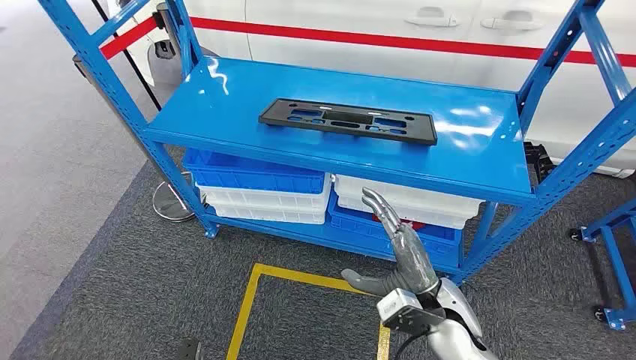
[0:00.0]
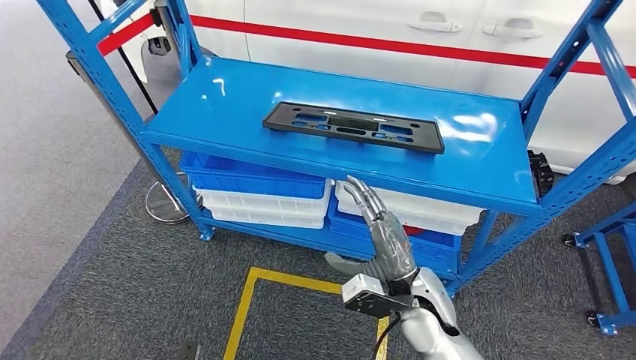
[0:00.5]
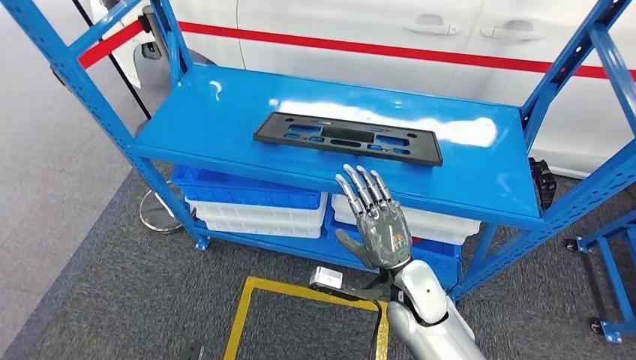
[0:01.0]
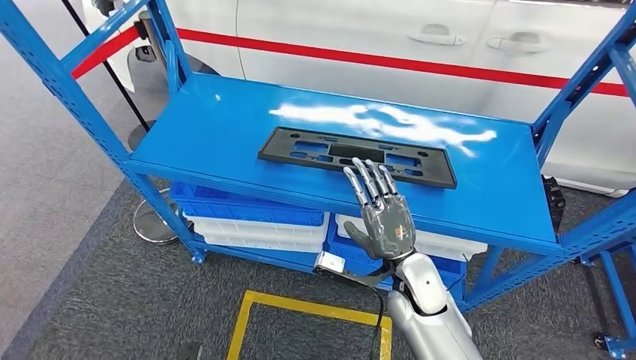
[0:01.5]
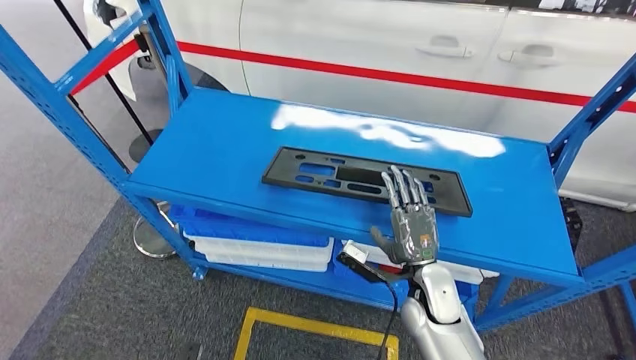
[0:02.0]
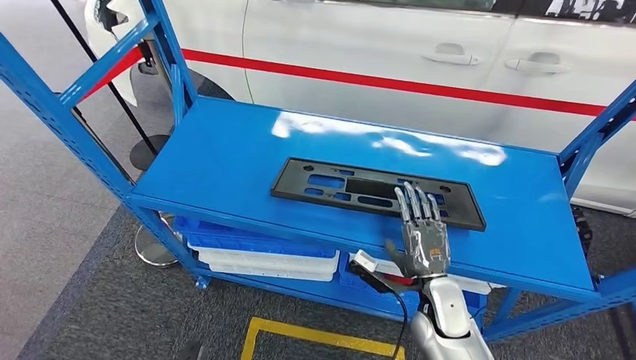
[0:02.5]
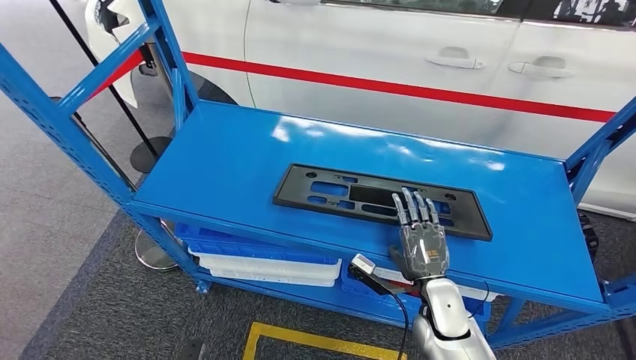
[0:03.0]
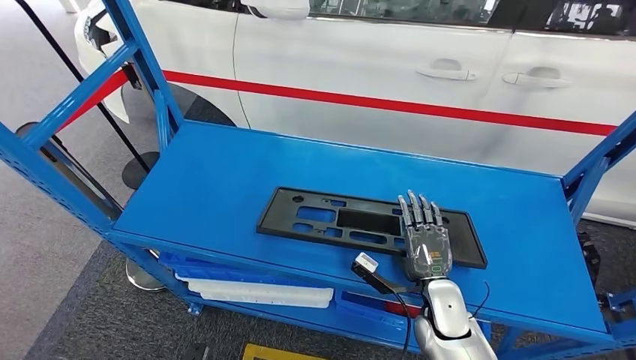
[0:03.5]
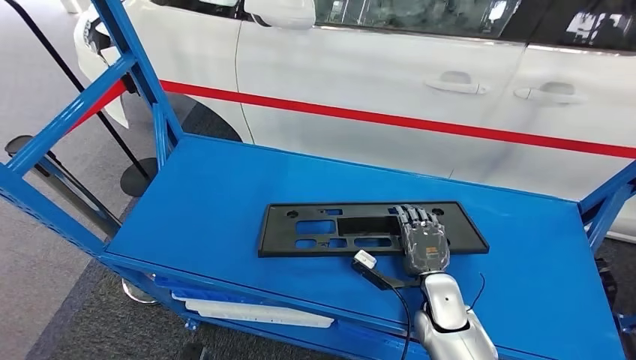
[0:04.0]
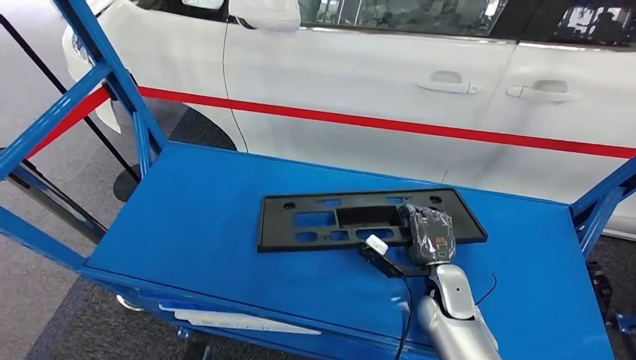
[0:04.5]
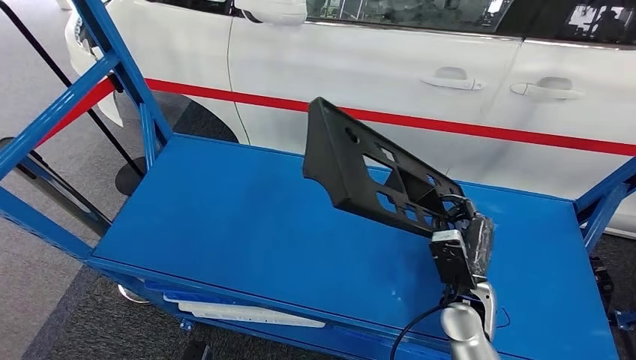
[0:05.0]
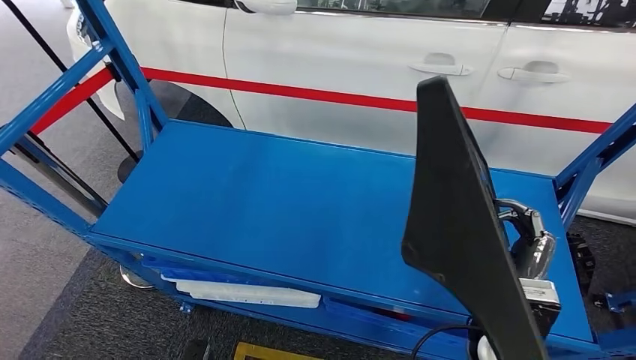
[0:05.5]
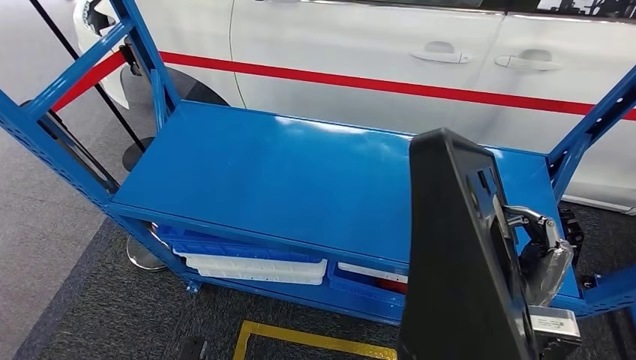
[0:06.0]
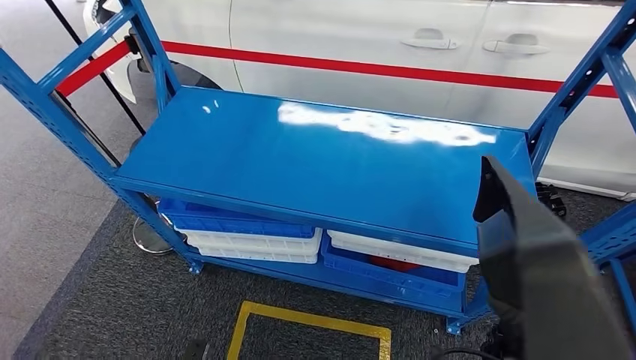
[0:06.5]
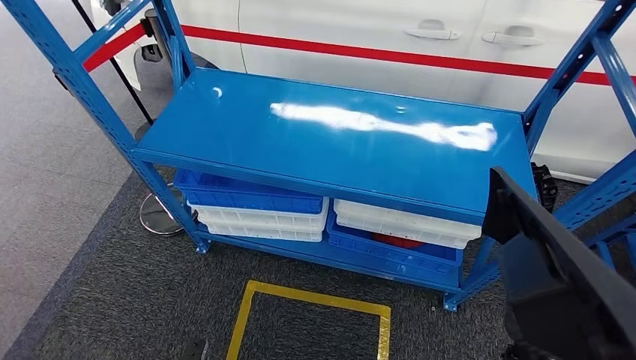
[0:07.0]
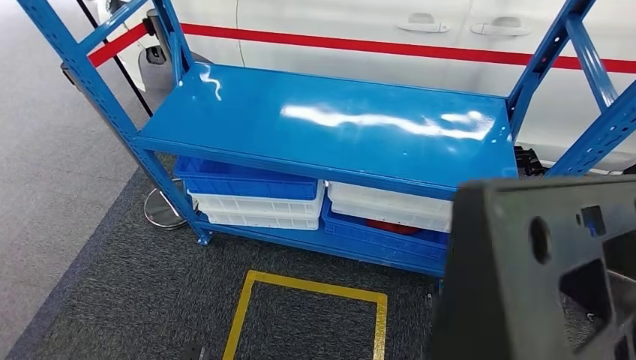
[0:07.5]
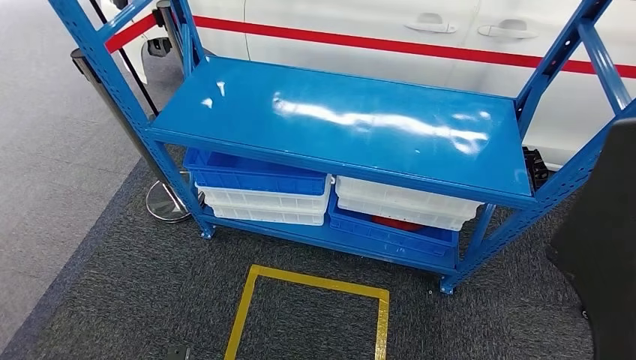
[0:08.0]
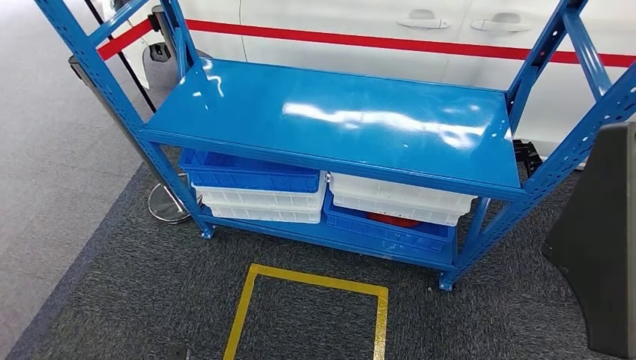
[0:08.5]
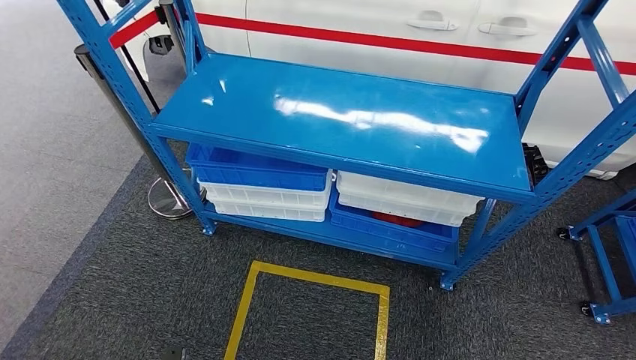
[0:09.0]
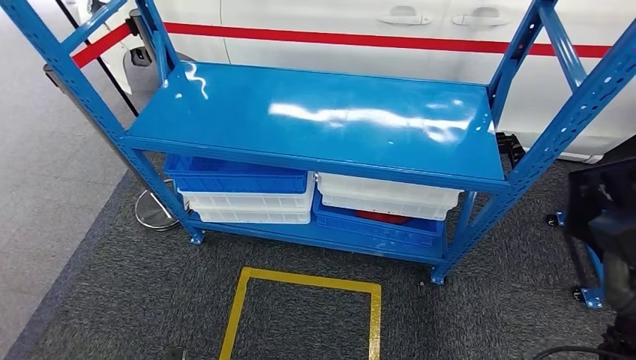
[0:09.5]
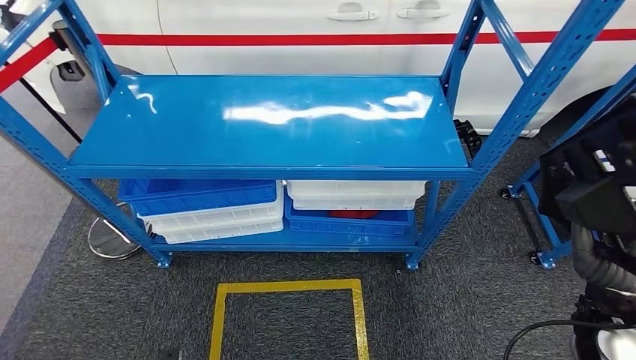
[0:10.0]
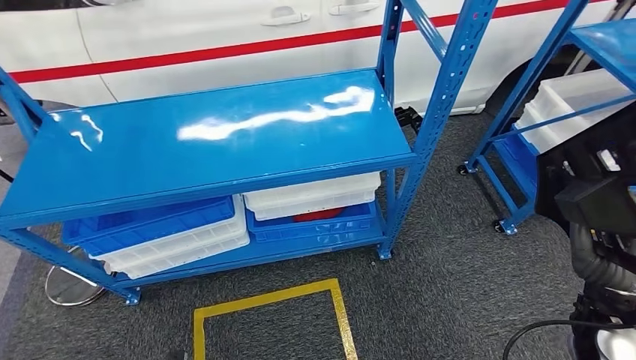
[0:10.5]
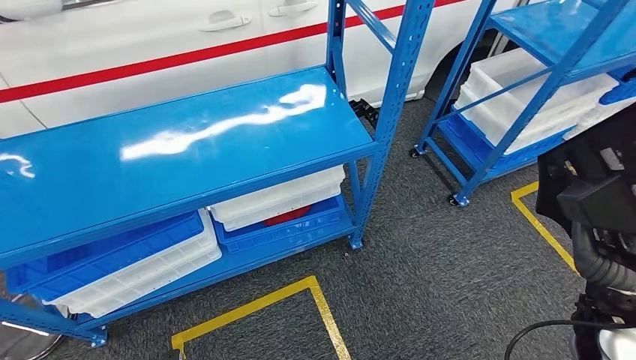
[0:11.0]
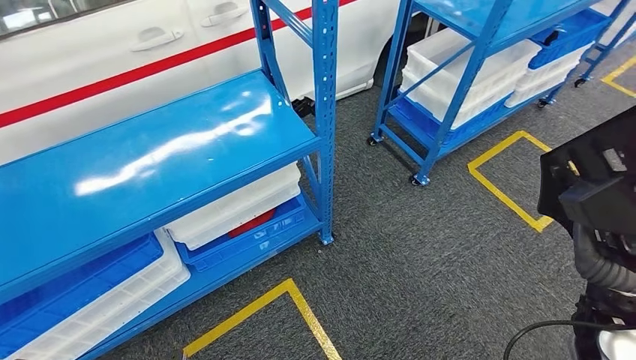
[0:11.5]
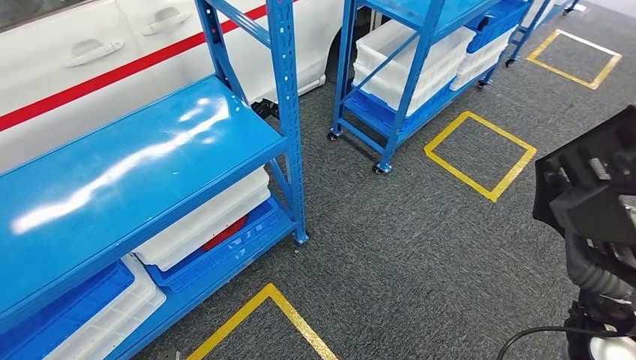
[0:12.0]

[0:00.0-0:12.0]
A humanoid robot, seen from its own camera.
Step, 0:00.0 to 0:05.5: Pick up the large material from the shelf.

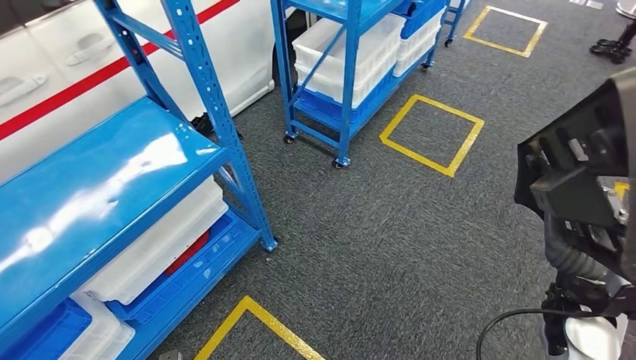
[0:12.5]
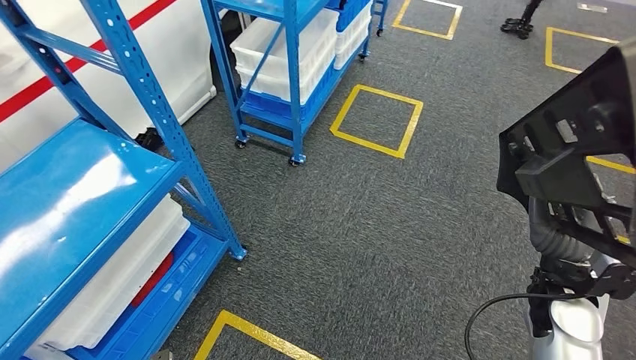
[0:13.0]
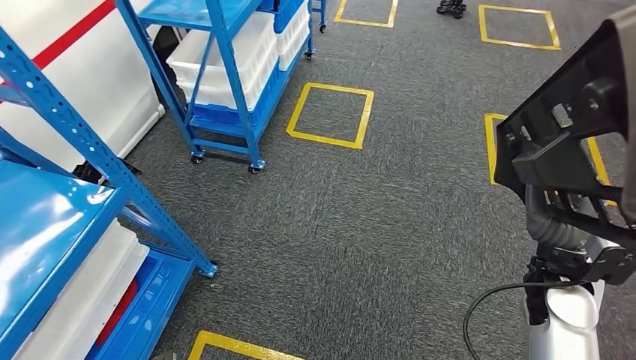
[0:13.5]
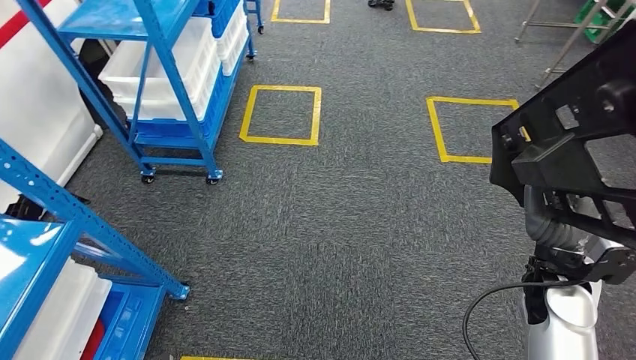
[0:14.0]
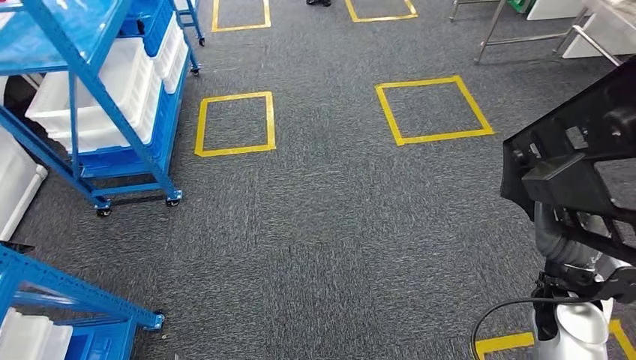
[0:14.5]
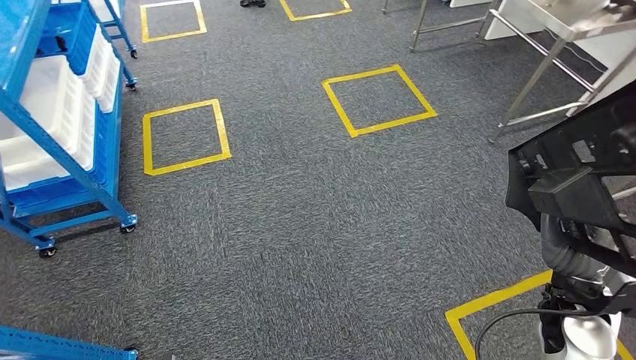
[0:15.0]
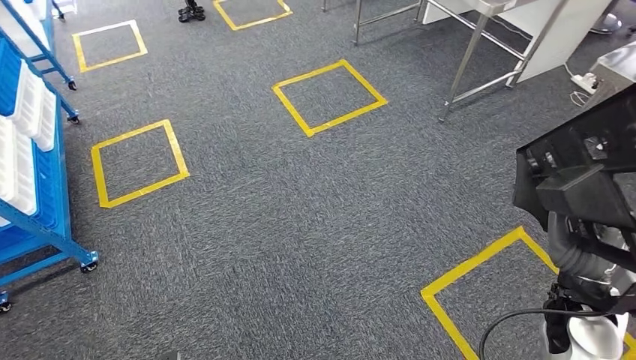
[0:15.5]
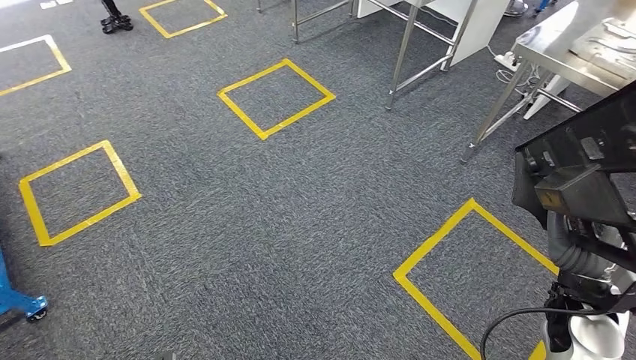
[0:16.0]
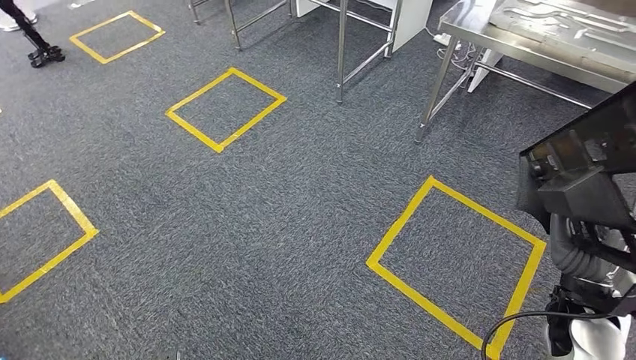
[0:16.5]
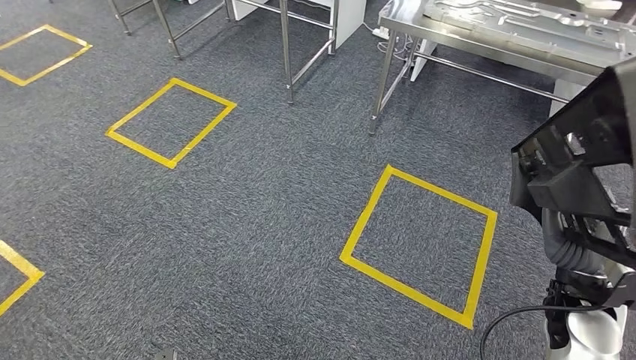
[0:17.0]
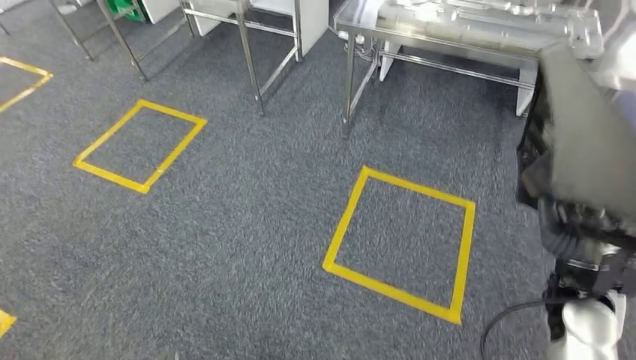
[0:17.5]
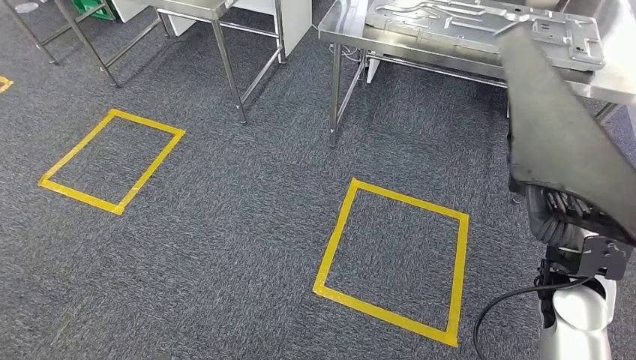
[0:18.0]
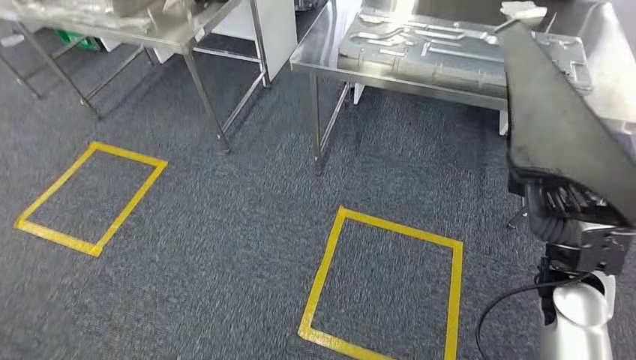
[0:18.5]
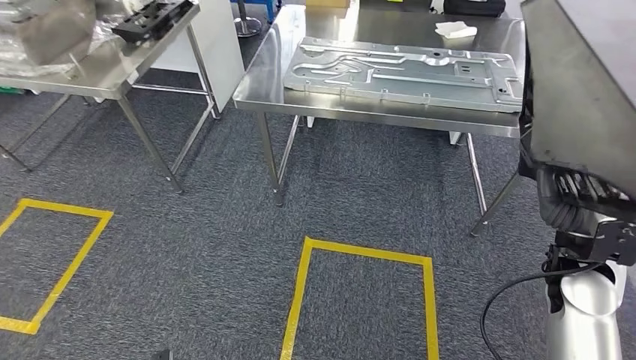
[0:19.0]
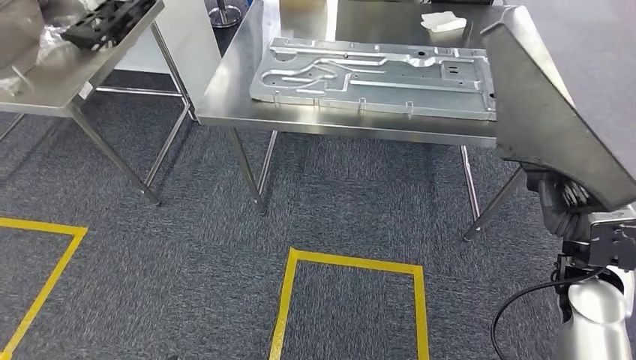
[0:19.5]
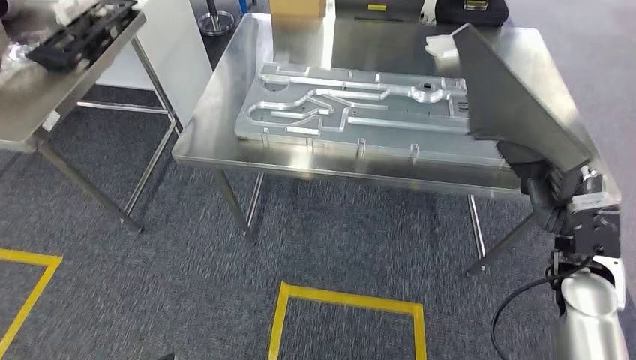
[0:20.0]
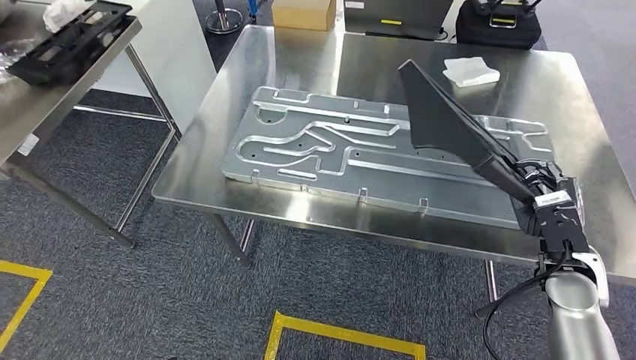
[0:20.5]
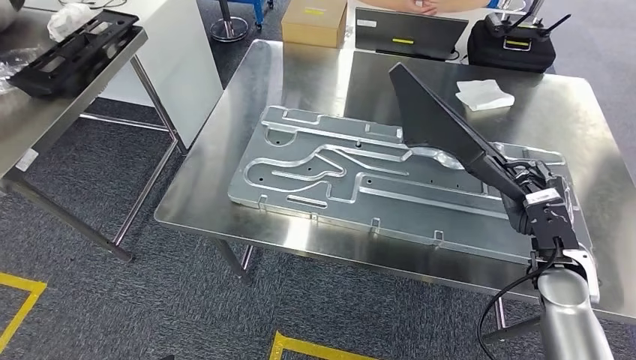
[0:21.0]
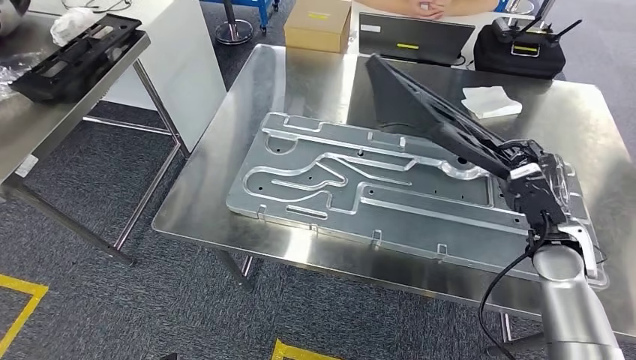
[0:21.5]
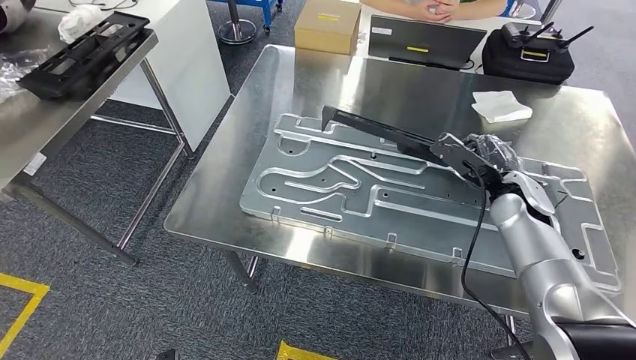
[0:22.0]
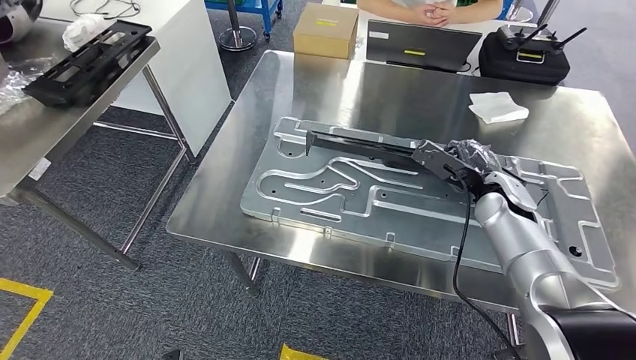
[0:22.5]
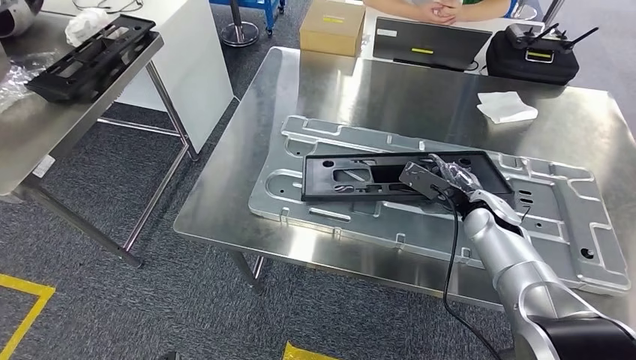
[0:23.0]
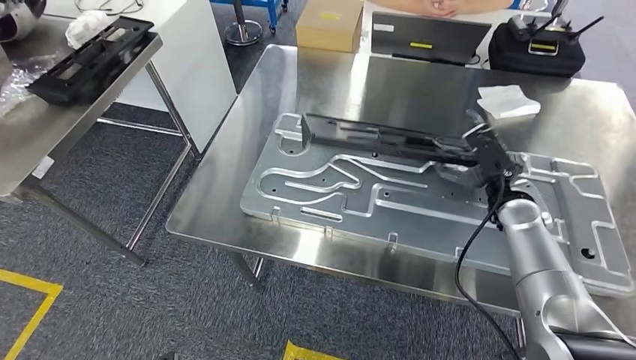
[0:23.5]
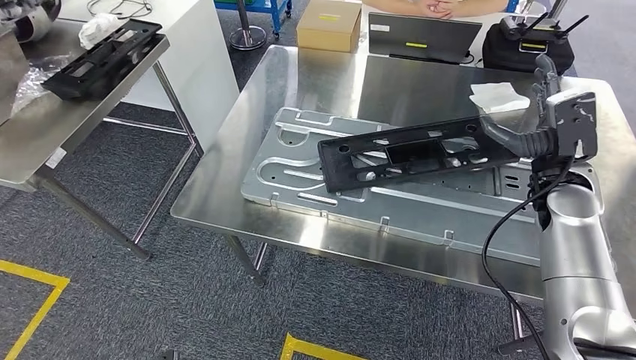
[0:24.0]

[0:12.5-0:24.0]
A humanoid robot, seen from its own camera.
Step, 0:12.5 to 0:20.0: Move the large material to the workbench.
